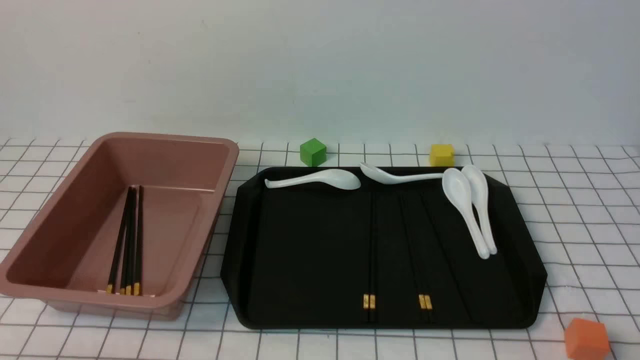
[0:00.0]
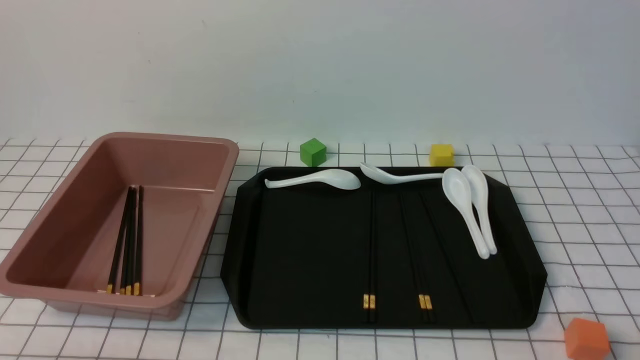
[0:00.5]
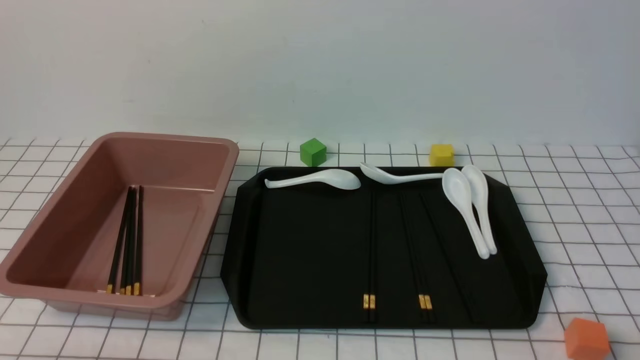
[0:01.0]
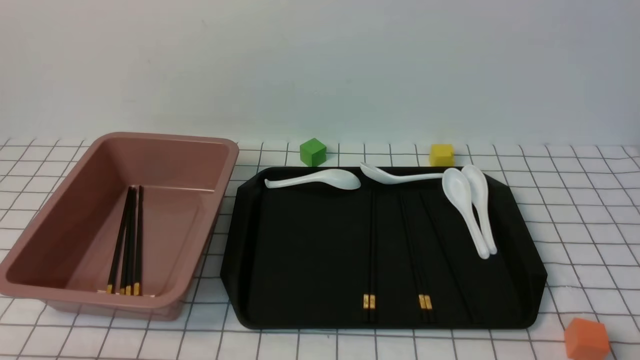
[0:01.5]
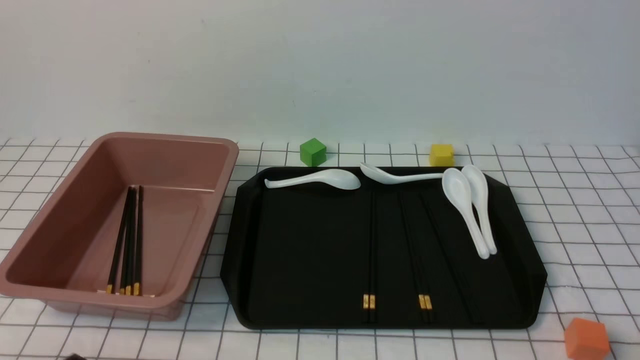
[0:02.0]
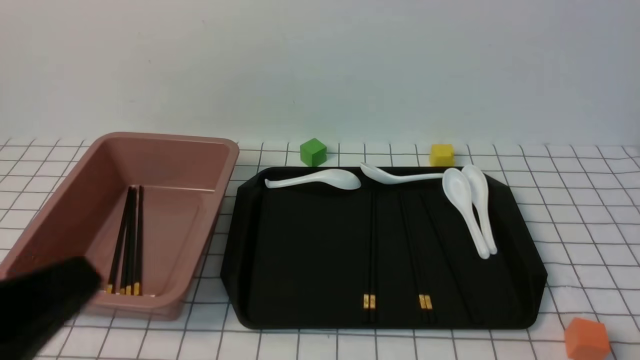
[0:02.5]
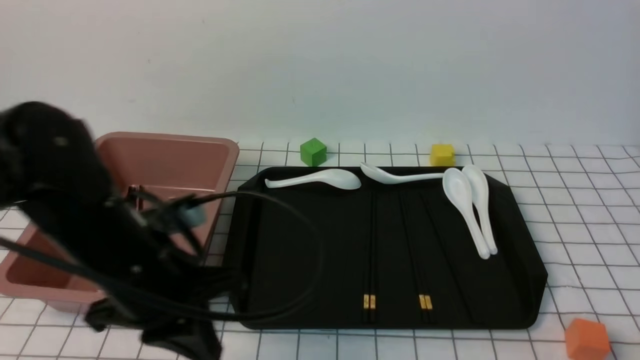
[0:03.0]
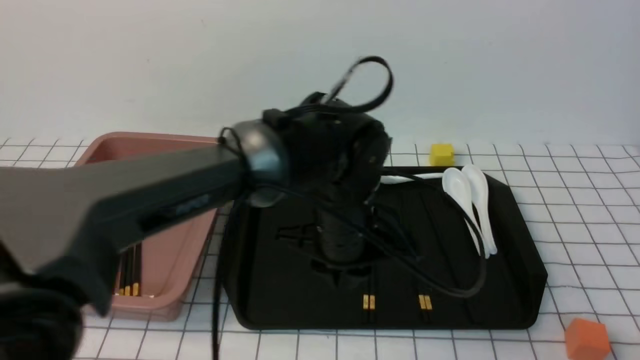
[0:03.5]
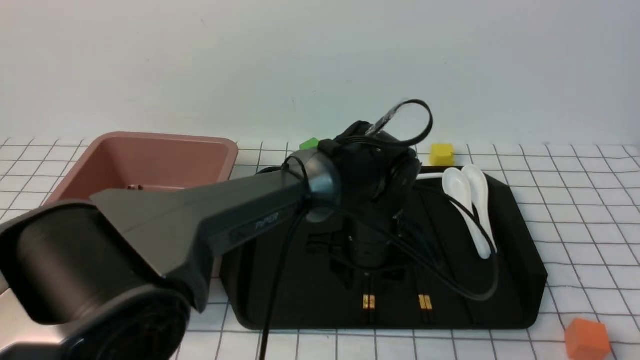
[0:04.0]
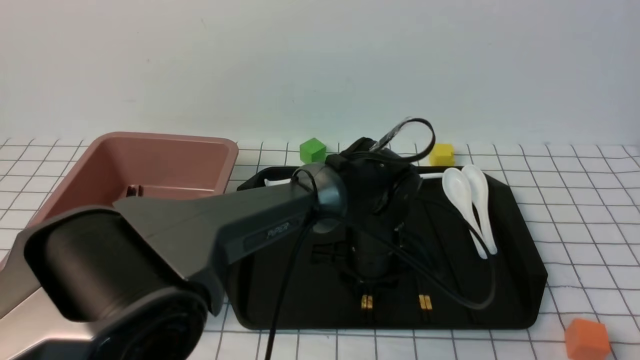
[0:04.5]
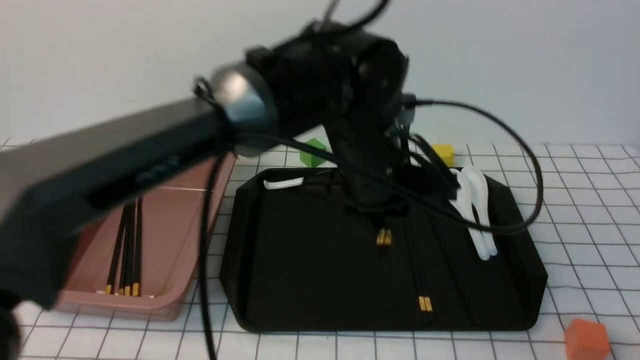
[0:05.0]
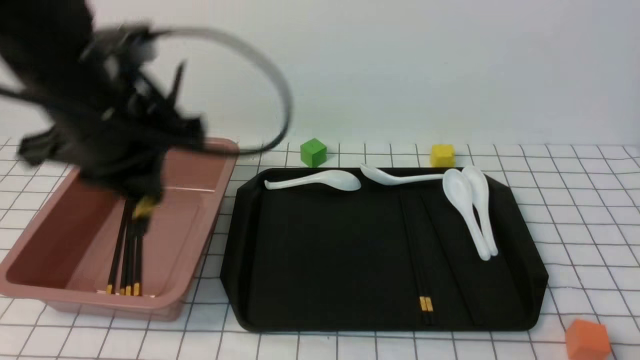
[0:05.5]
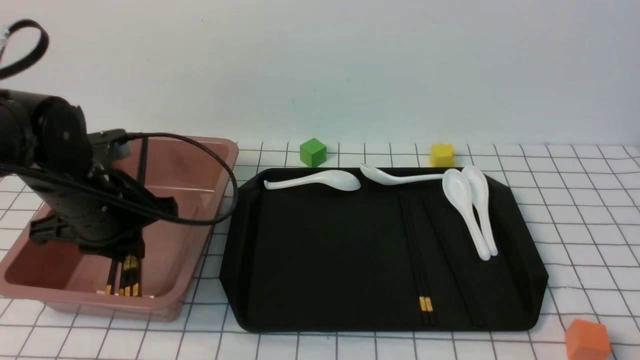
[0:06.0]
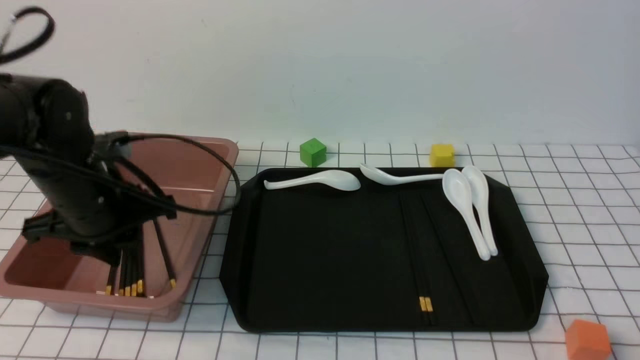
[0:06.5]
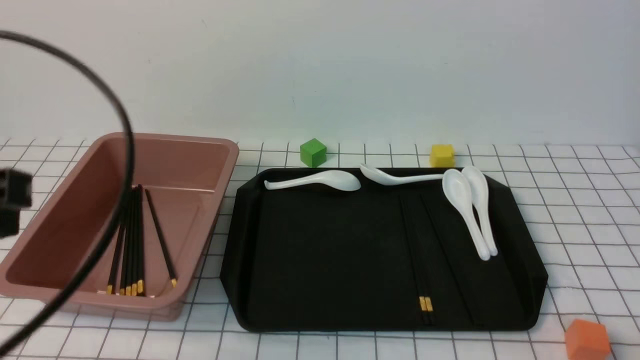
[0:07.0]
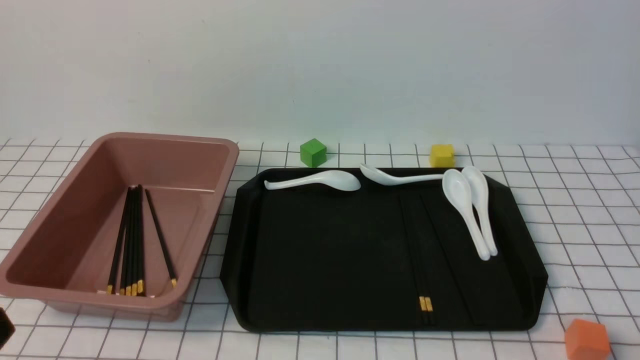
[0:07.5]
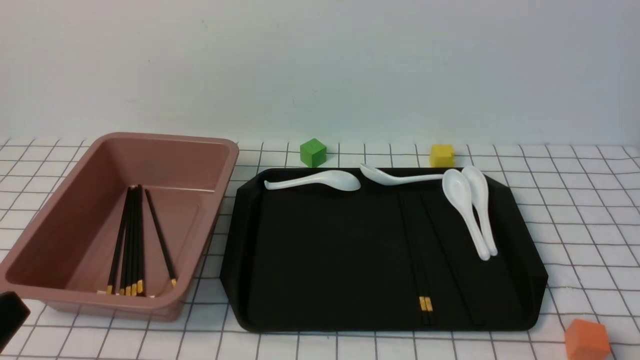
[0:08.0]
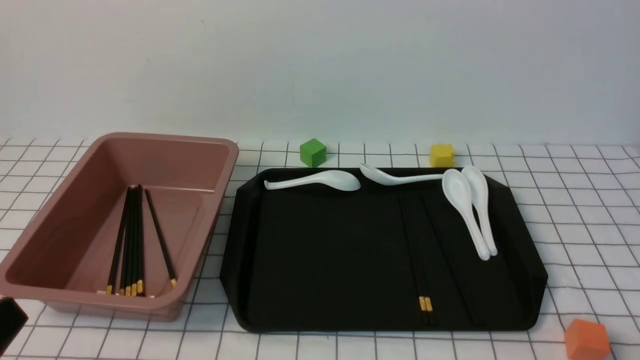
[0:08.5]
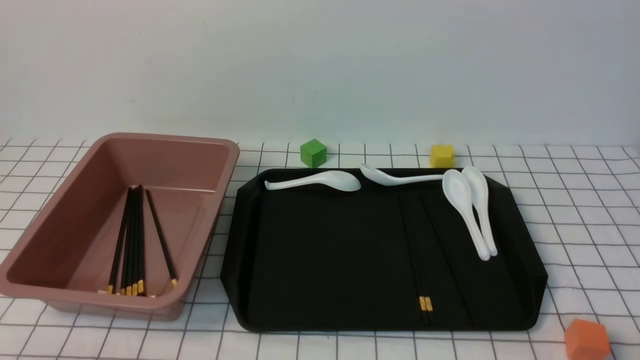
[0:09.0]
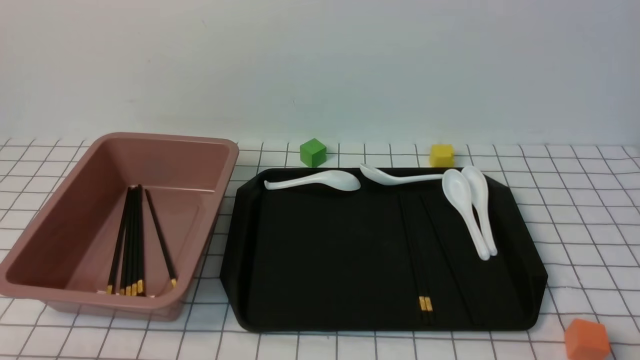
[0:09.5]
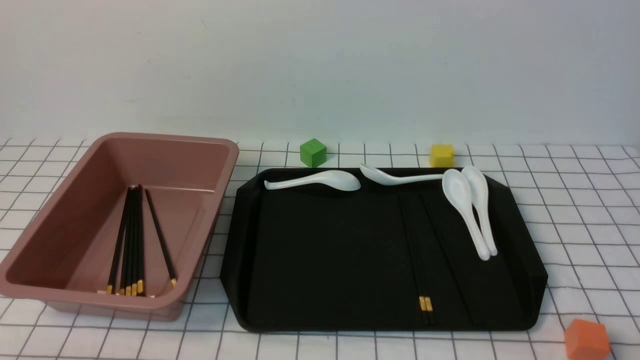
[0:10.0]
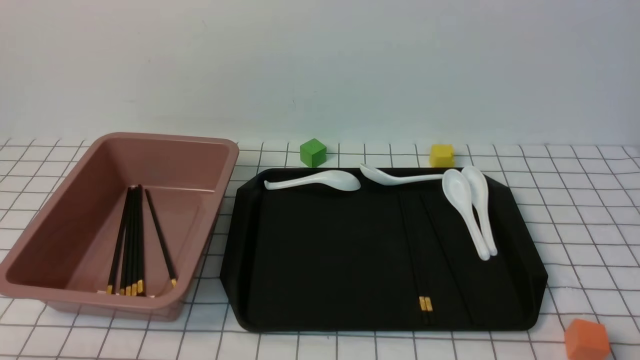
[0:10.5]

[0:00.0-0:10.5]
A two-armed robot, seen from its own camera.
Step, 0:00.0 to 0:05.0: use the left arm to grab a pair of chopsticks.
Step, 0:05.5 to 0:06.5: use the left arm to put the chopsticks into the lunch box.
0:02.0 to 0:04.0: The left gripper moves forward and to the right, approximately 40 cm, and opens up.
0:04.0 to 0:06.5: The left gripper heads to the left, covering some 30 cm, and closes.
0:06.5 to 0:08.5: The left gripper heads backward, covering approximately 25 cm, and closes its fingers.
